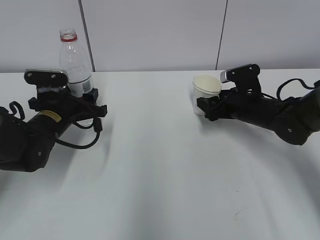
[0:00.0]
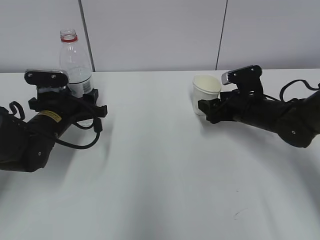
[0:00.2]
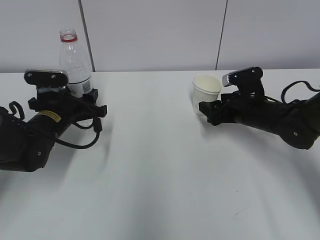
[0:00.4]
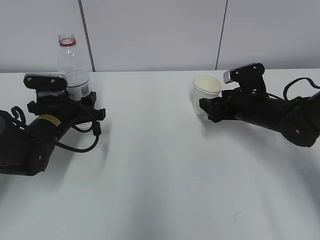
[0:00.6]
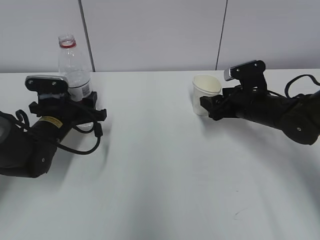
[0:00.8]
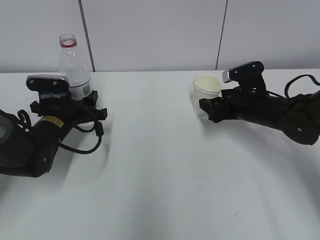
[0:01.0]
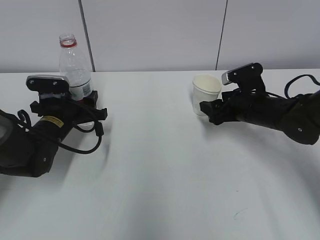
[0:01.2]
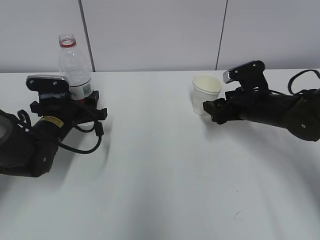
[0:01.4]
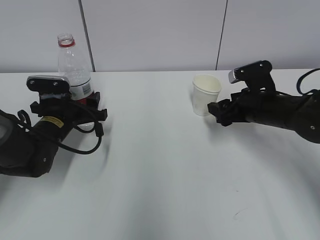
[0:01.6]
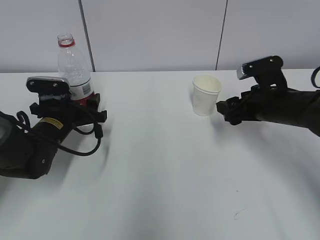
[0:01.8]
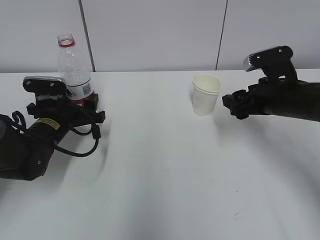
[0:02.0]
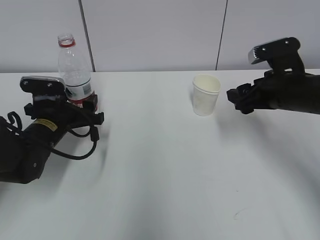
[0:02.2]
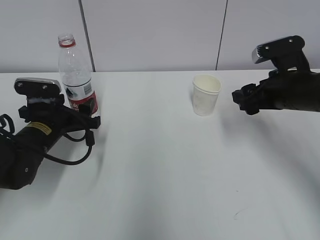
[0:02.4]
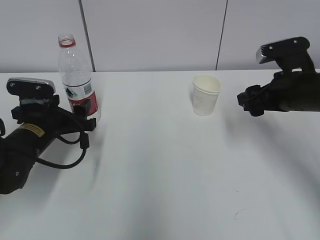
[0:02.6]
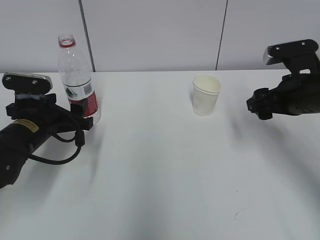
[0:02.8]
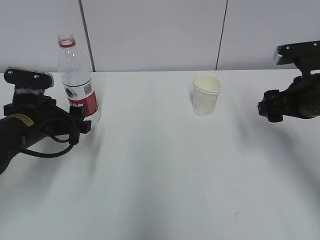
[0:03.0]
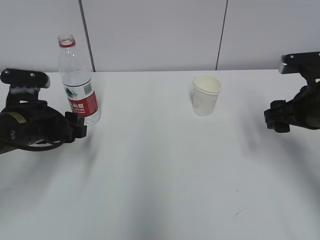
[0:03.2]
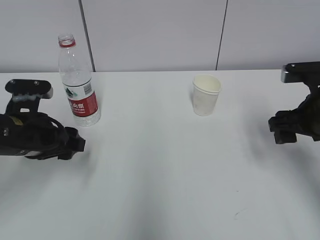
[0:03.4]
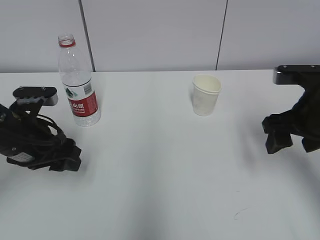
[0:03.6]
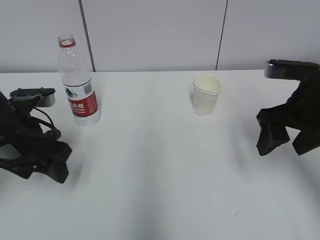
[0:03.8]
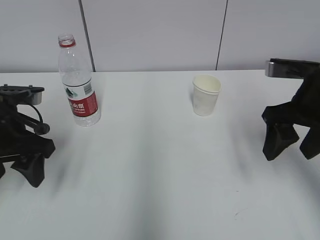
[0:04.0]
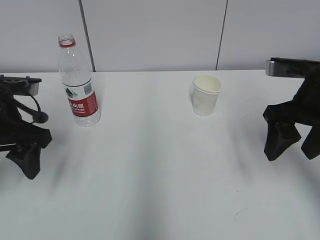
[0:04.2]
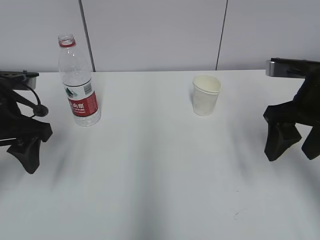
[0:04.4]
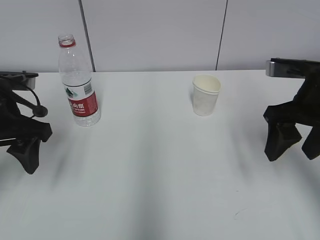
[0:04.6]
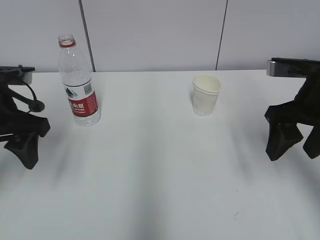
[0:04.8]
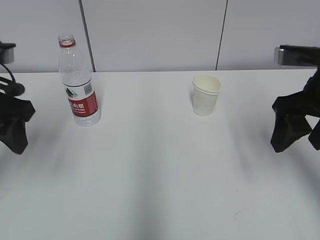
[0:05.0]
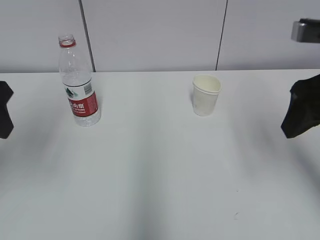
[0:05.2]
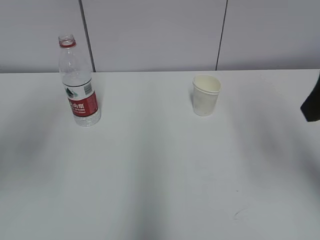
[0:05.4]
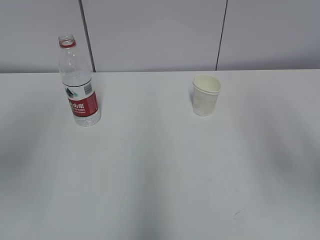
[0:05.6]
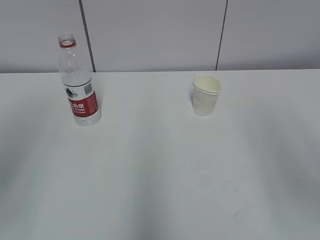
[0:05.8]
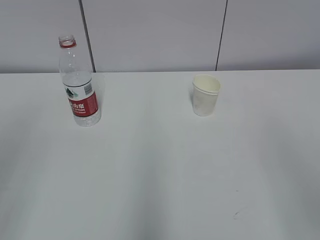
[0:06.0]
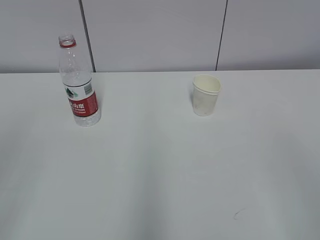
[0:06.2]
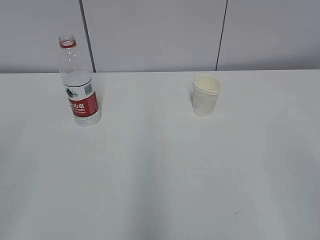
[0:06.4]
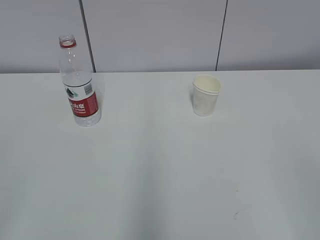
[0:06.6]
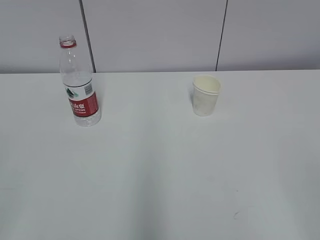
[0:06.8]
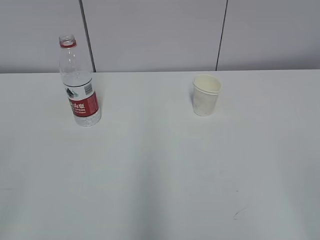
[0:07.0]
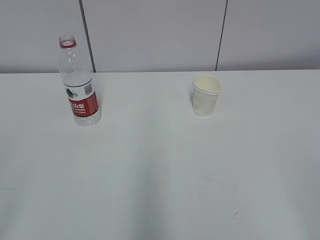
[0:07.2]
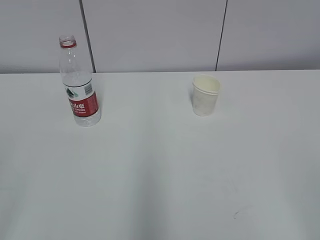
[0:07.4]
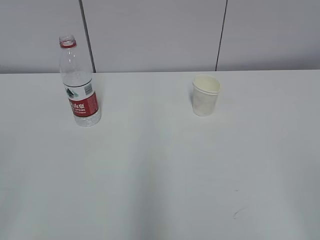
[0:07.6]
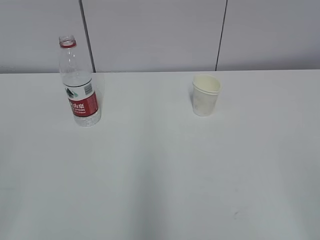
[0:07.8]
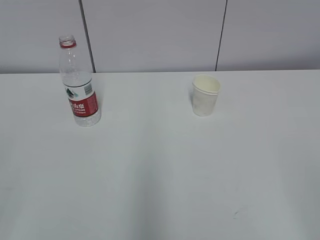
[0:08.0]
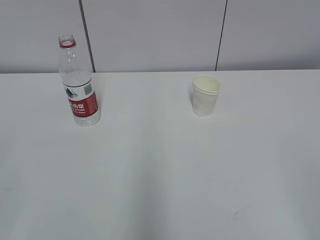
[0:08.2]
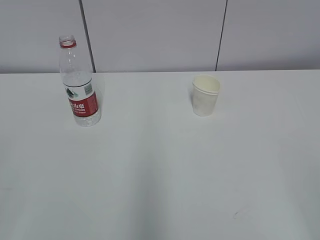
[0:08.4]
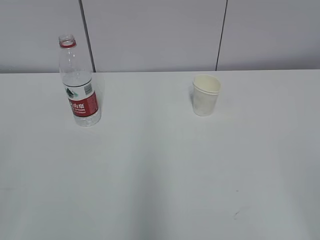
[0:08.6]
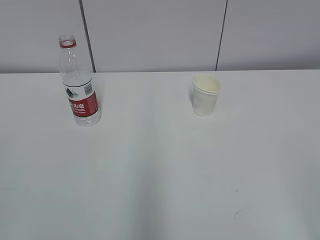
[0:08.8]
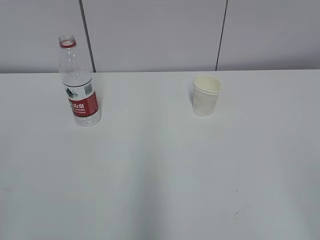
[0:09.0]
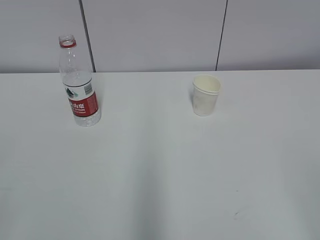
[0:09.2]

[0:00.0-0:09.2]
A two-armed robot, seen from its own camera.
0:00.0 to 0:01.6: The grippers stay close to where they were, moving slightly.
0:01.6 to 0:03.0: The right gripper goes roughly 10 cm upward and backward. The left gripper travels backward by roughly 5 cm.
0:03.0 to 0:04.6: The right gripper shifts by some 5 cm. The left gripper shifts approximately 10 cm upward.
0:04.6 to 0:06.2: The right gripper is displaced backward by roughly 25 cm. The left gripper heads backward and upward, covering roughly 25 cm.

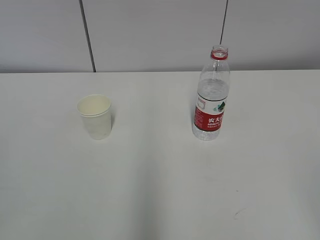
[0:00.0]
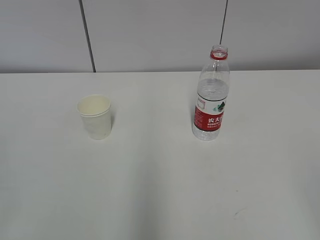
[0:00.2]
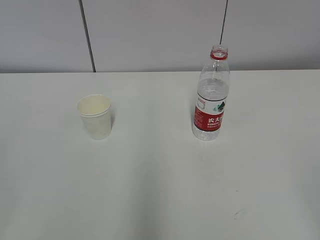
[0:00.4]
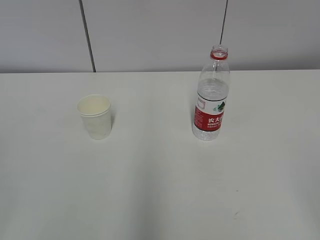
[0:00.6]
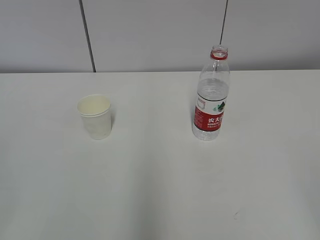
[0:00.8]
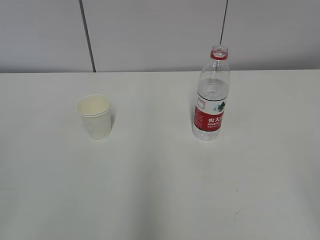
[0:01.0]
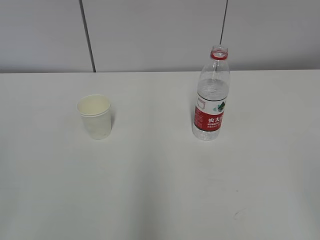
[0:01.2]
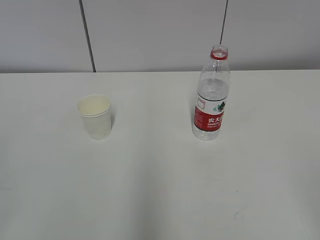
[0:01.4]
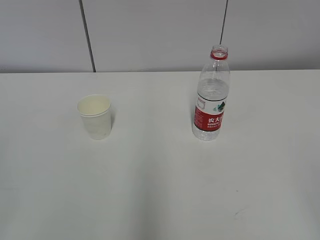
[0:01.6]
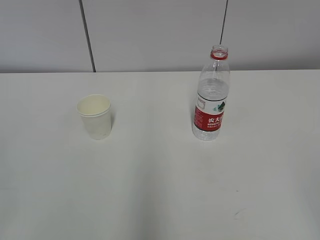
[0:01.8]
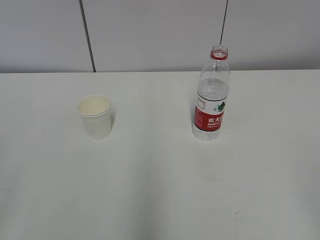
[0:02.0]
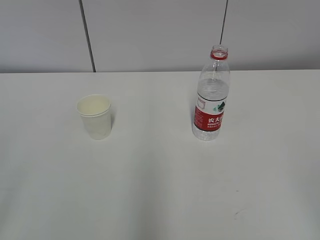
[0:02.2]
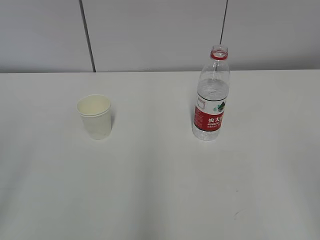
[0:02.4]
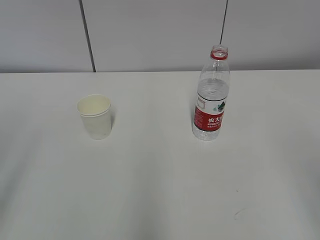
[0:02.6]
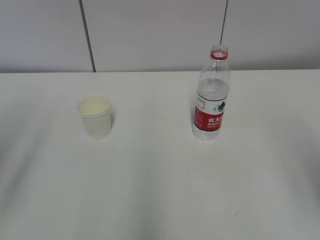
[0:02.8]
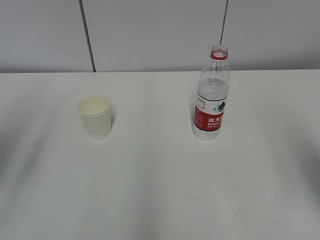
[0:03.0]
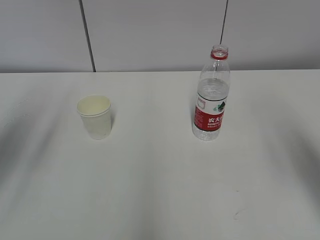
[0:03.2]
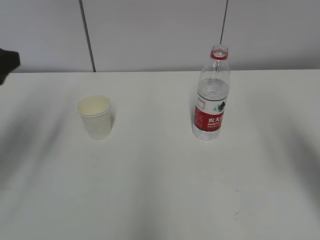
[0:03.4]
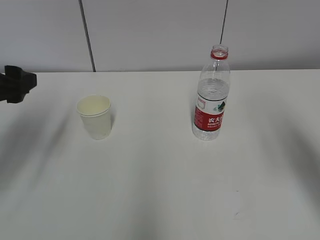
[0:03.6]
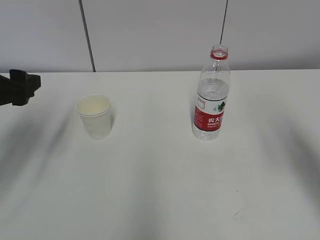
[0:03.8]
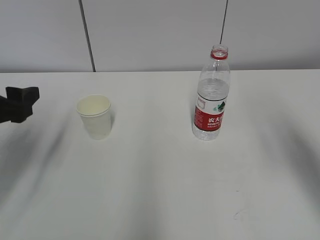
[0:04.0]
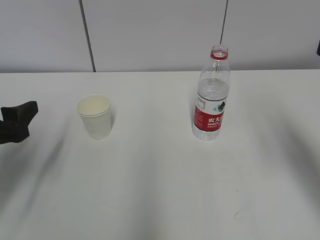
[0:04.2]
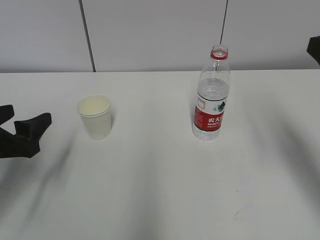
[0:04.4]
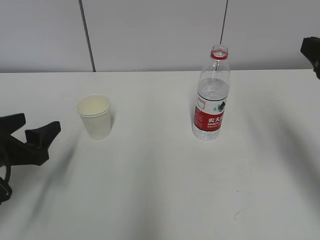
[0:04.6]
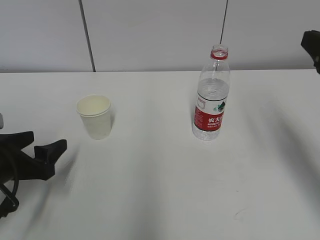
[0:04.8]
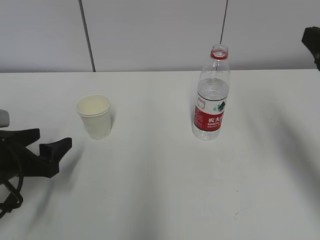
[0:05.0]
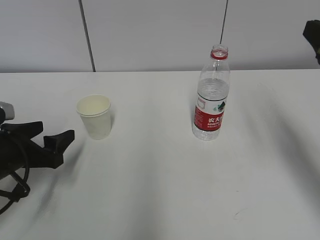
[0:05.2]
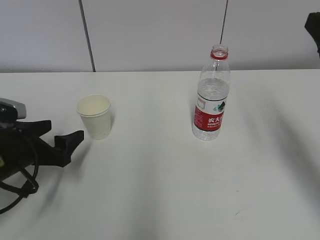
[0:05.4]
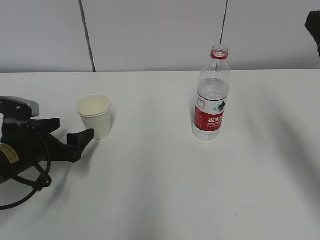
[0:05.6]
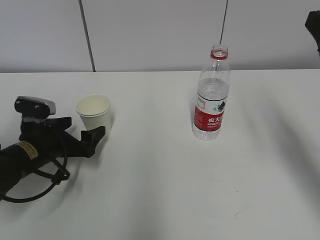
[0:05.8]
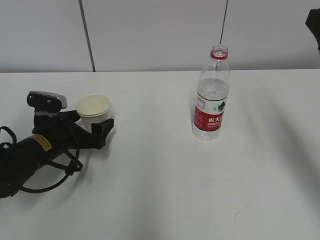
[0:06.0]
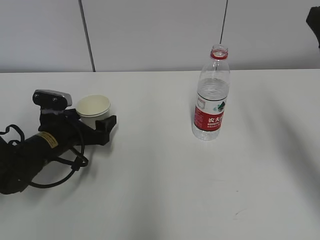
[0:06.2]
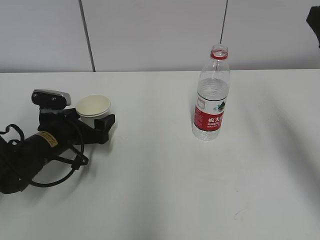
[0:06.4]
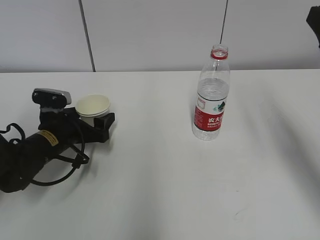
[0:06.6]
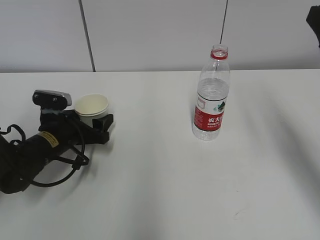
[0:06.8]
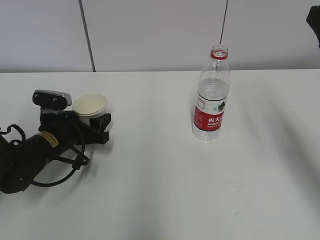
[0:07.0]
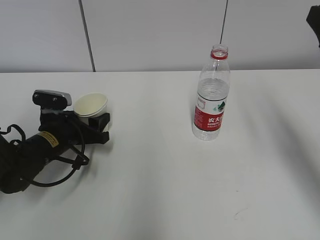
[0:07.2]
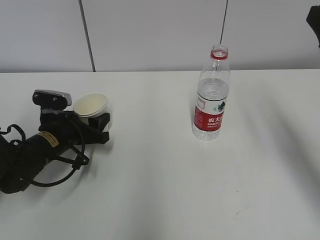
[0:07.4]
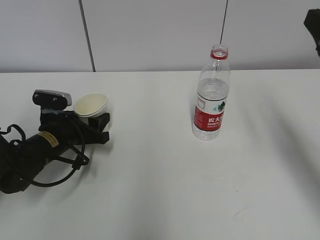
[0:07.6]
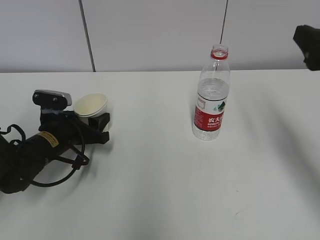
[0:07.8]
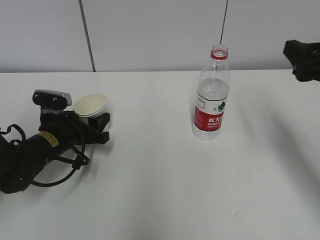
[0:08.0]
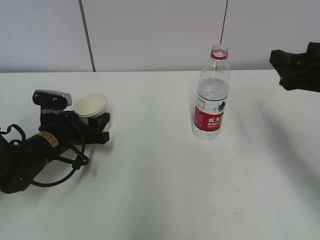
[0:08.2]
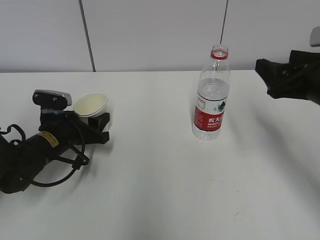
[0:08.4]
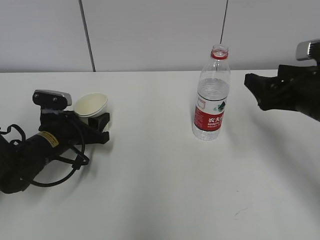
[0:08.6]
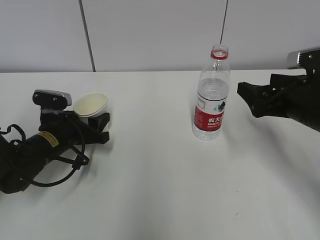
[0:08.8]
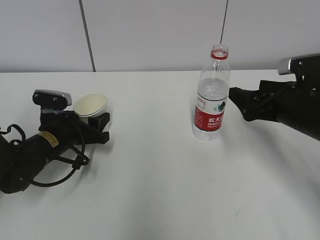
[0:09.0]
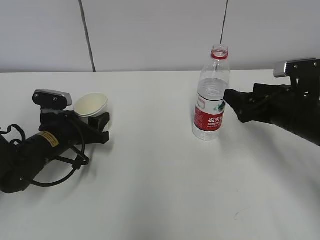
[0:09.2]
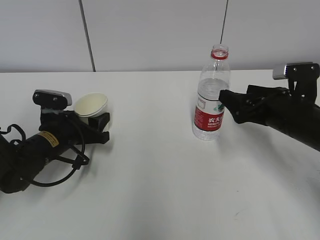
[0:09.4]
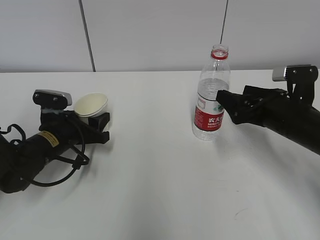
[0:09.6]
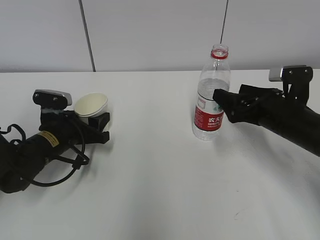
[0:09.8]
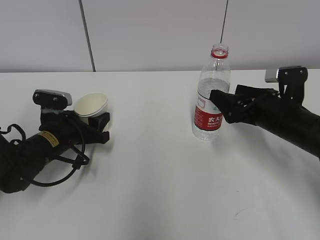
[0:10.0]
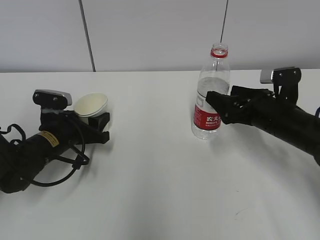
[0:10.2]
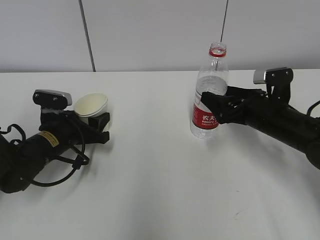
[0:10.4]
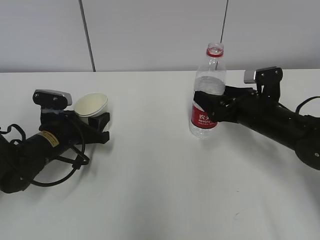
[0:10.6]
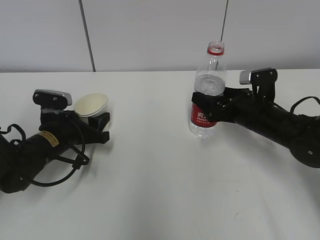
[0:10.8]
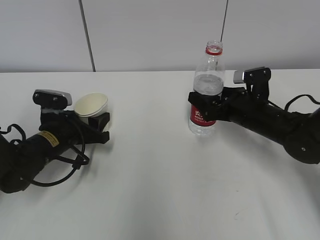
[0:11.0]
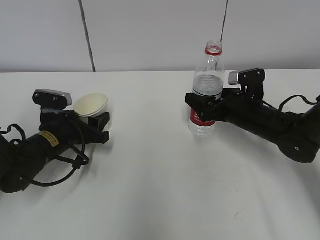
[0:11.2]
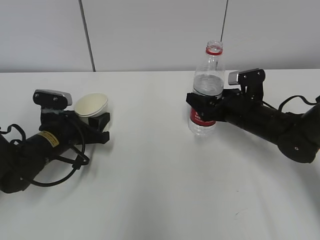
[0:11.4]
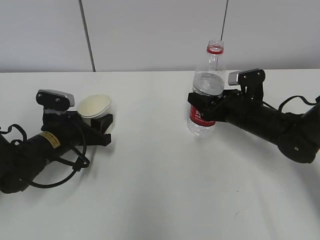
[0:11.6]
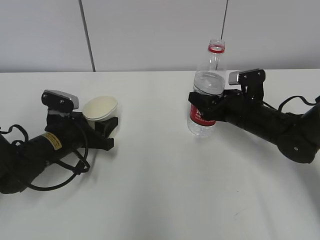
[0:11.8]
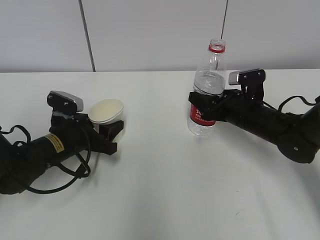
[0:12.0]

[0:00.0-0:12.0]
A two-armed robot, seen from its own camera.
Step, 0:00.0 to 0:10.2: Grab the water bottle with the right hand.
0:01.6 to 0:03.0: The two grippers go some 15 cm forward. The left gripper opens up.
0:03.0 to 0:04.4: The left gripper goes roughly 15 cm downward.
0:04.4 to 0:06.0: The left gripper shifts approximately 15 cm forward, downward and to the right.
0:06.0 to 0:07.6: The left gripper closes up.
0:07.6 to 0:09.0: The right gripper shifts about 15 cm downward and forward, and opens its fingers.
0:09.0 to 0:10.4: The right gripper moves approximately 5 cm.
0:10.4 to 0:12.0: The right gripper changes place by about 5 cm, and closes its fingers.

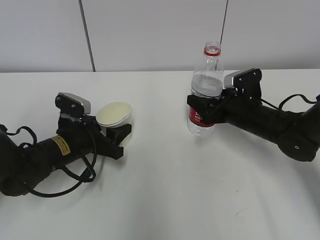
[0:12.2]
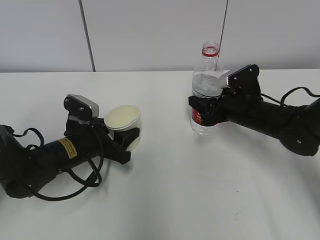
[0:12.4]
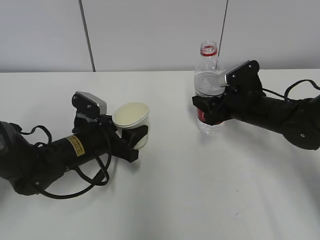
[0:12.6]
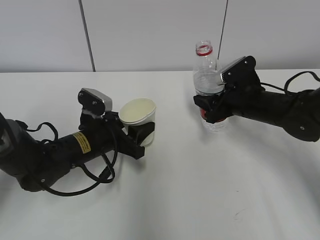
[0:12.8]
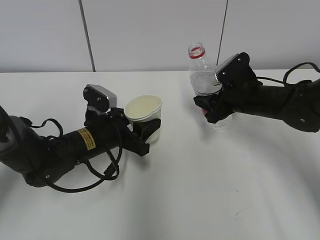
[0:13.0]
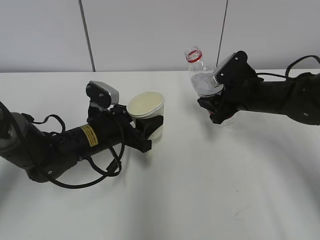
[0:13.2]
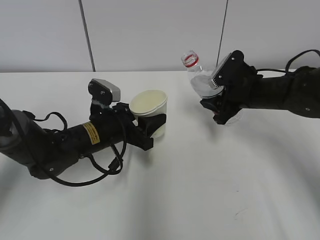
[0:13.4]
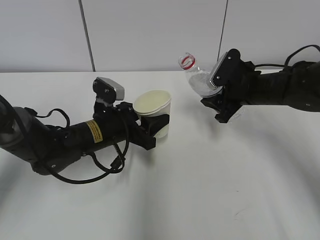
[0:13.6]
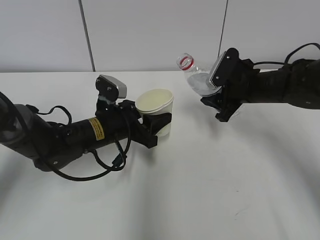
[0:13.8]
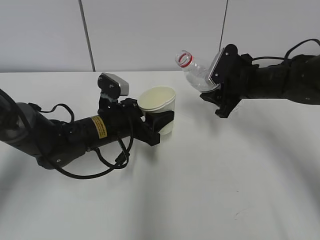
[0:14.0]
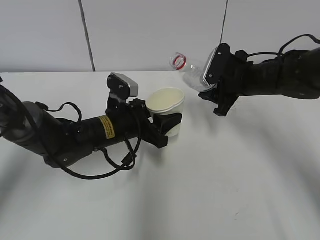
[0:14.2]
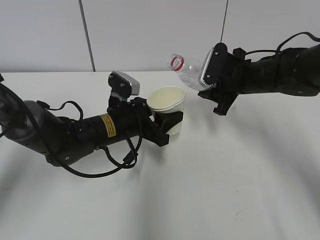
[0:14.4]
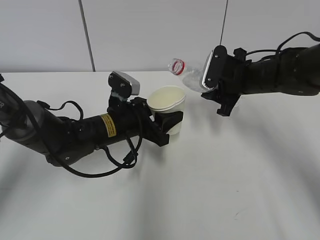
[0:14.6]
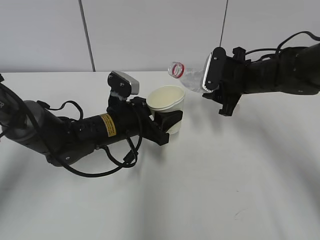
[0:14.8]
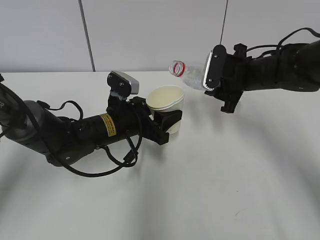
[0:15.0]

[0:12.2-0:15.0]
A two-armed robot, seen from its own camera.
Step, 0:12.2 to 0:14.6: Lift the paper cup with the left hand.
0:12.2 to 0:13.6: The left gripper heads to the right, covering roughly 5 cm; the right gripper is displaced upward by roughly 5 cm.
